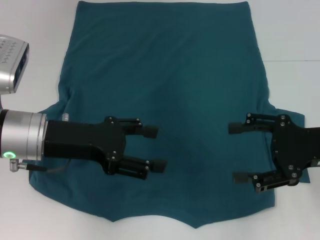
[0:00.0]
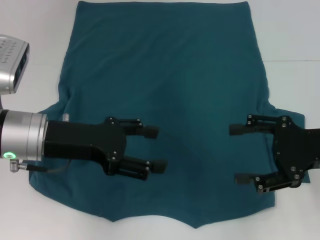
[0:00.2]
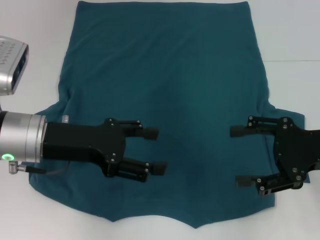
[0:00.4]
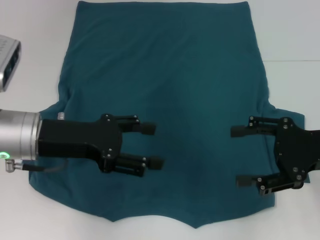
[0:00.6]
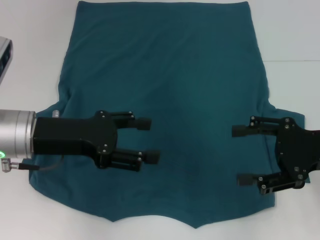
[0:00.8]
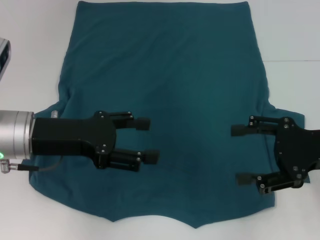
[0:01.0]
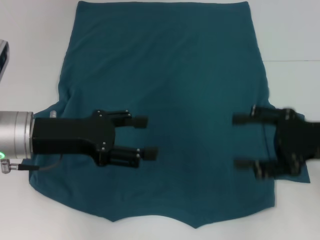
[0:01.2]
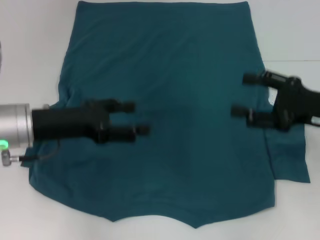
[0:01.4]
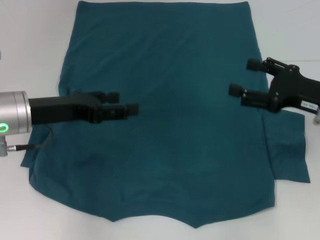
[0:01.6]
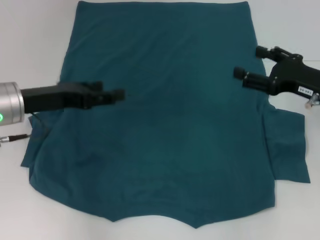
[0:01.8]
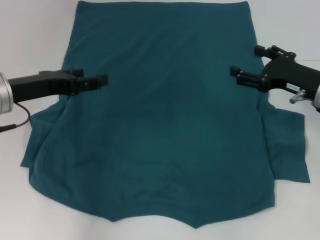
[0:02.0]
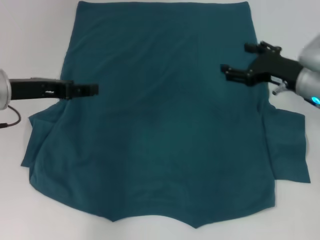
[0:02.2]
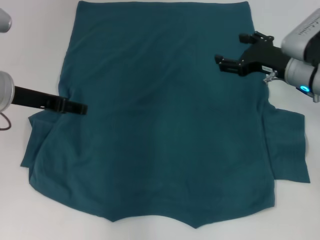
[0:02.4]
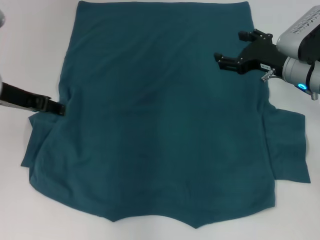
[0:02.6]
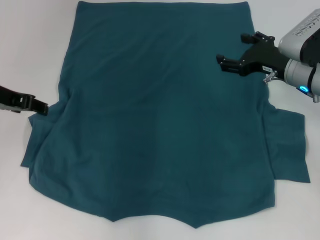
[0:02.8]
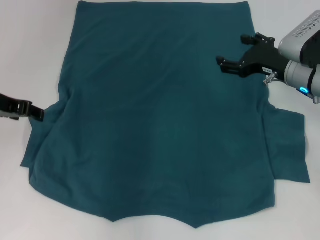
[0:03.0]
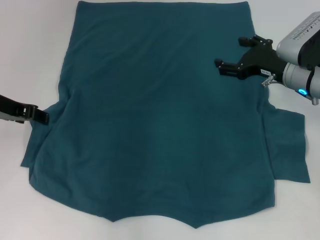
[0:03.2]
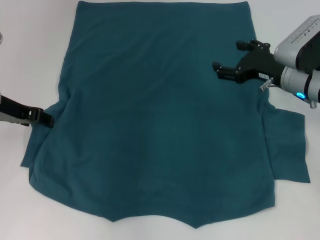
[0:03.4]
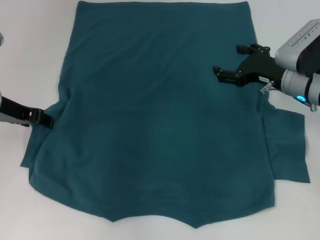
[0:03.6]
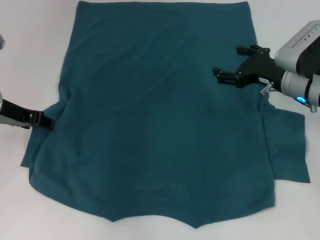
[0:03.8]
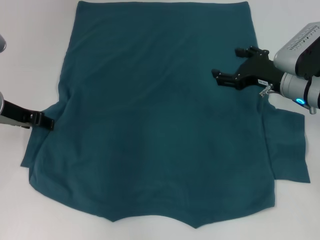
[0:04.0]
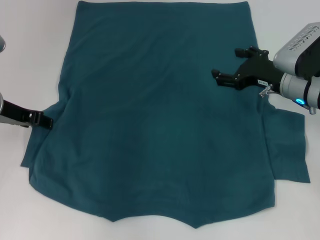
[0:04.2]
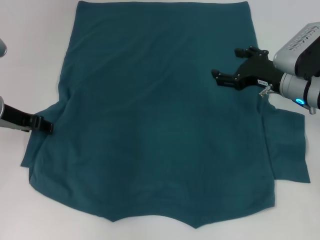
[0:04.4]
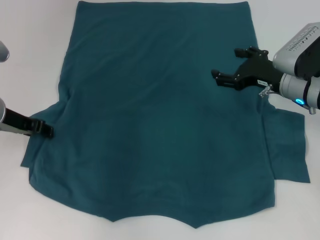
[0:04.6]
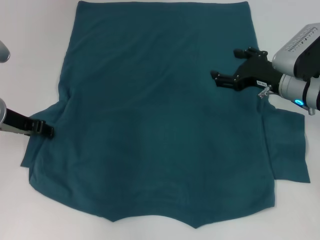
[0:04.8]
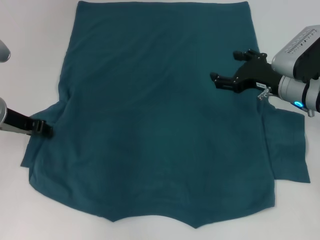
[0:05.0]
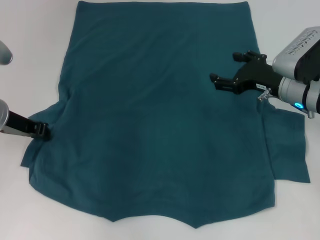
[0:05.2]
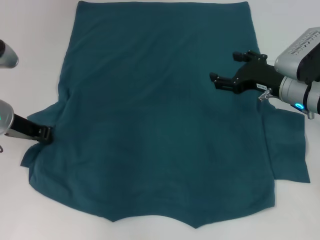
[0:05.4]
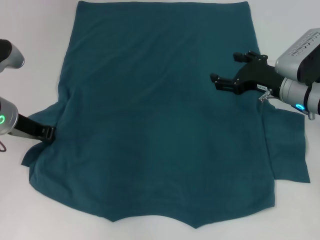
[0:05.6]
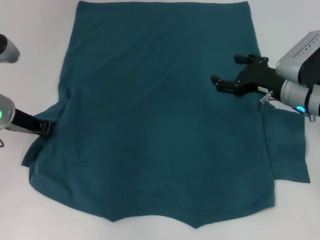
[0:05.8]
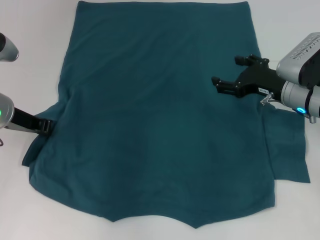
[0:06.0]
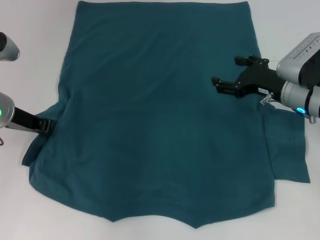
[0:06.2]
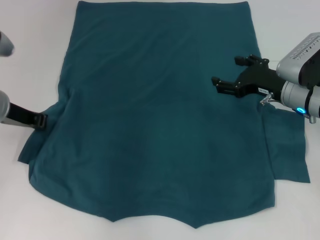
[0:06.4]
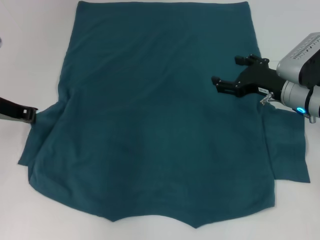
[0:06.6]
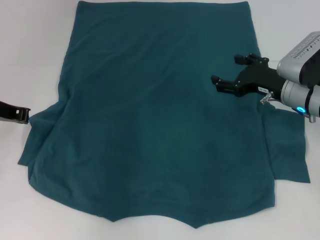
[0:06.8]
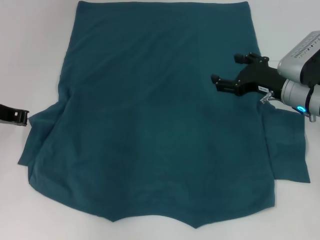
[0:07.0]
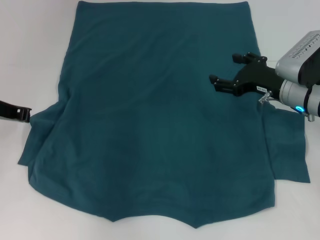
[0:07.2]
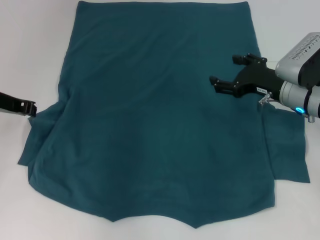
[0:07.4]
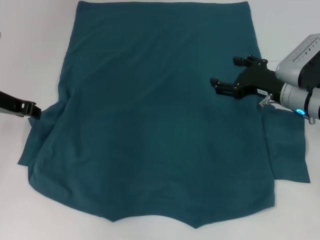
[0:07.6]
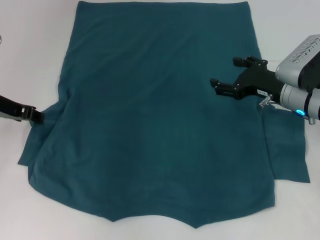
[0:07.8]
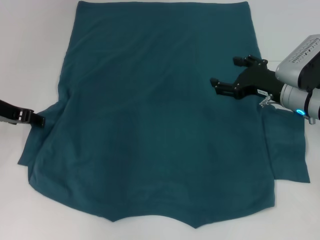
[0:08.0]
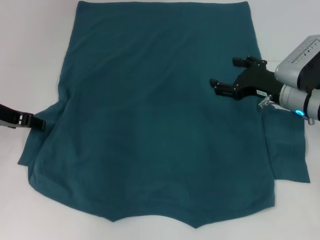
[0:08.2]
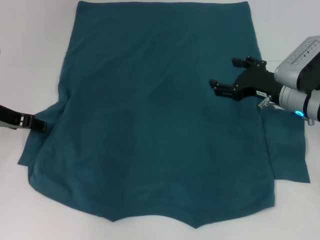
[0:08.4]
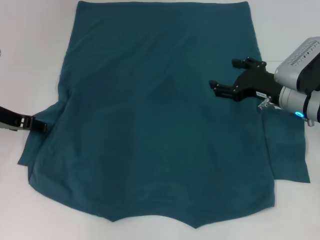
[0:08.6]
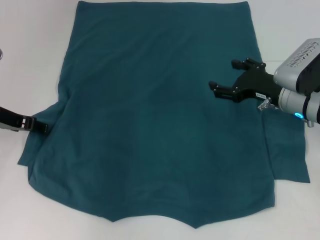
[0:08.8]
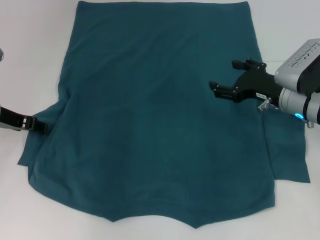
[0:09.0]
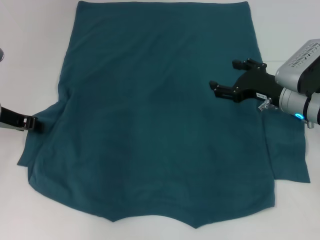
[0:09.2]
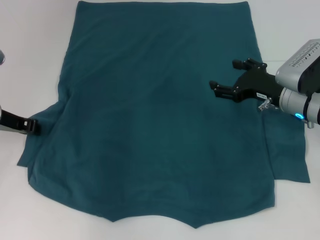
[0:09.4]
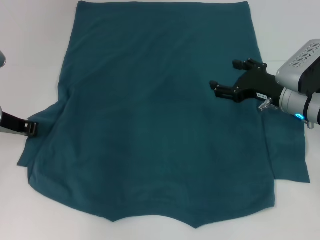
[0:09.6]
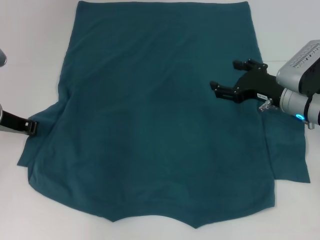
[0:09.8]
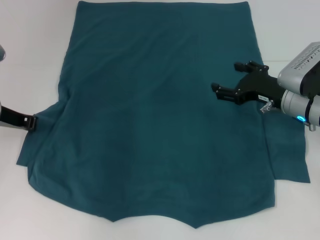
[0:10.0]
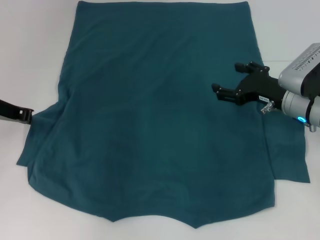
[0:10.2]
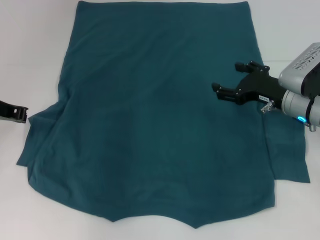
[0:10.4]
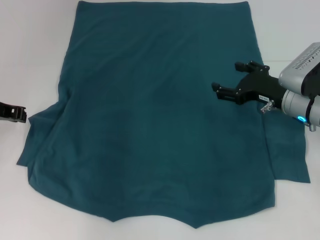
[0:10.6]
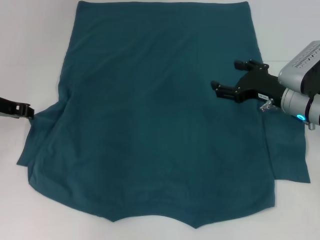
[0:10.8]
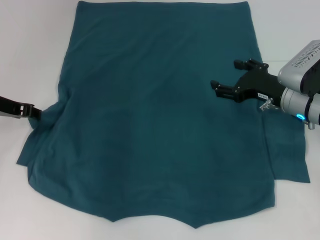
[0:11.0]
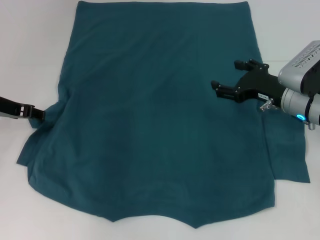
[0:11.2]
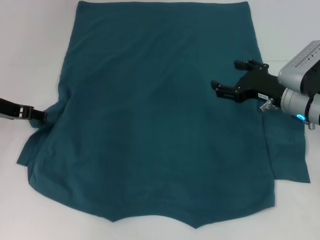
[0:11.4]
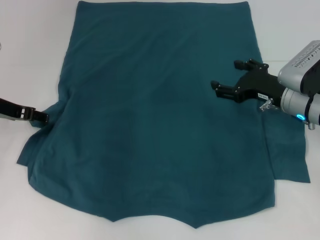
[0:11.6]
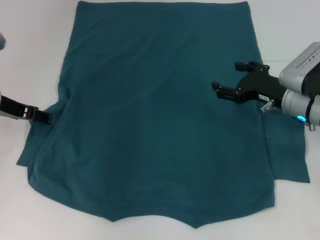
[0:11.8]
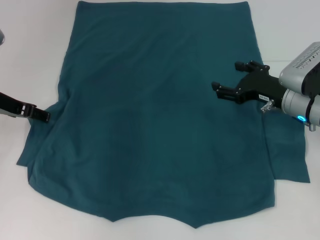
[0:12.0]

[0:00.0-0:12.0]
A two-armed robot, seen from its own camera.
0:01.6 to 0:03.0: The right gripper heads forward, covering approximately 10 cm. The left gripper moves roughly 5 cm.
0:03.0 to 0:04.4: The grippers move only a little.
0:04.4 to 0:06.0: The left gripper closes up.
0:06.0 to 0:07.6: There are only small adjustments of the grippers.
0:07.6 to 0:09.0: The left gripper opens its fingers.
0:09.0 to 0:10.4: The left gripper closes.
0:10.4 to 0:12.0: The left gripper opens up.

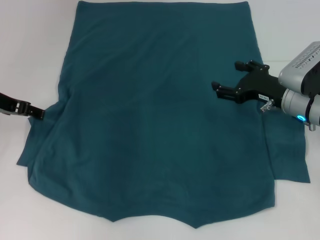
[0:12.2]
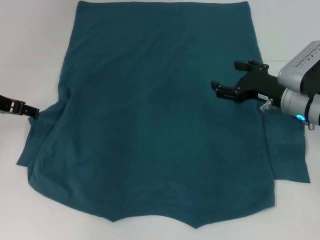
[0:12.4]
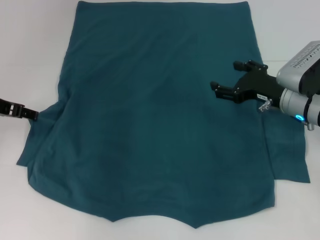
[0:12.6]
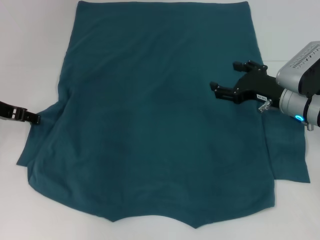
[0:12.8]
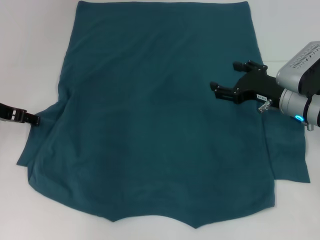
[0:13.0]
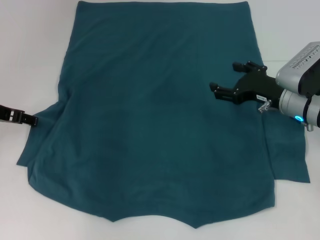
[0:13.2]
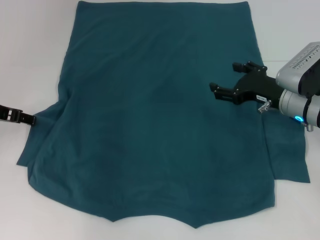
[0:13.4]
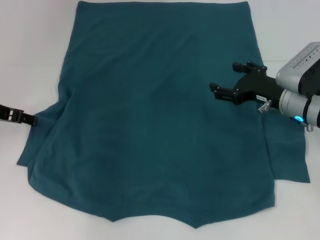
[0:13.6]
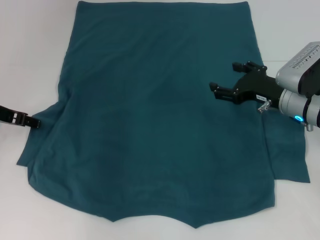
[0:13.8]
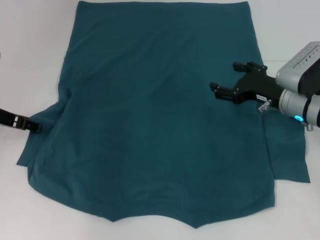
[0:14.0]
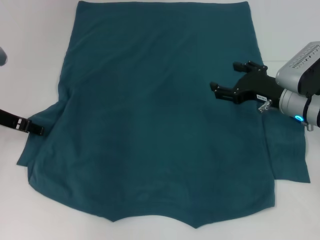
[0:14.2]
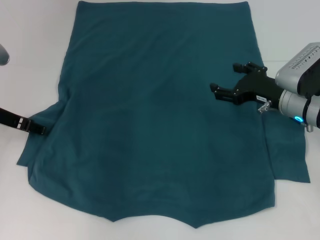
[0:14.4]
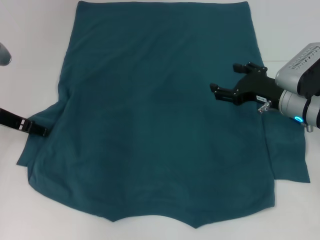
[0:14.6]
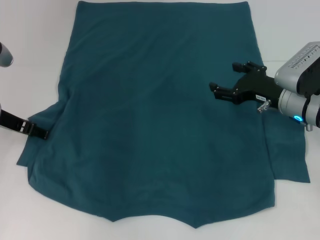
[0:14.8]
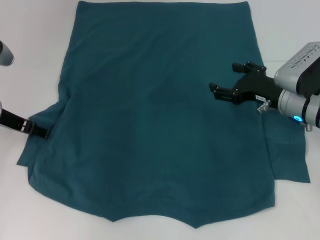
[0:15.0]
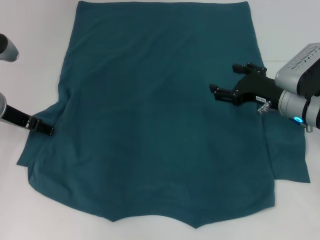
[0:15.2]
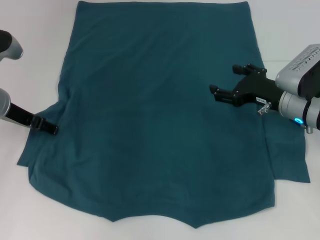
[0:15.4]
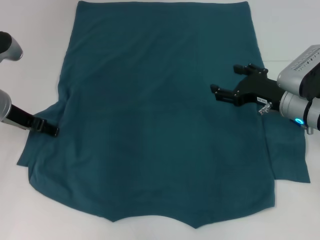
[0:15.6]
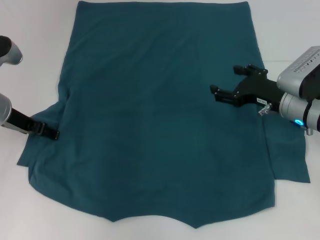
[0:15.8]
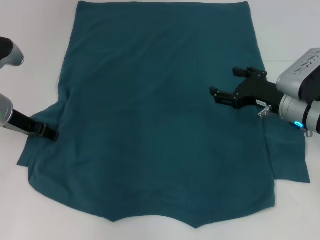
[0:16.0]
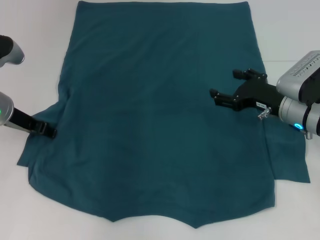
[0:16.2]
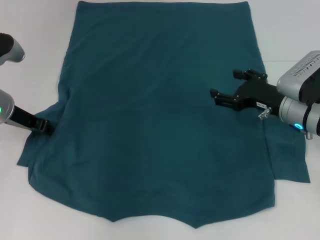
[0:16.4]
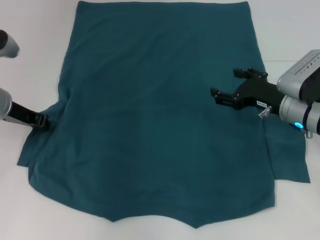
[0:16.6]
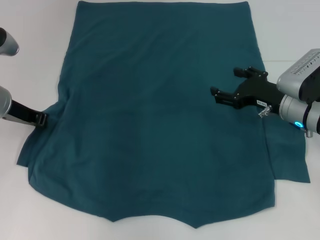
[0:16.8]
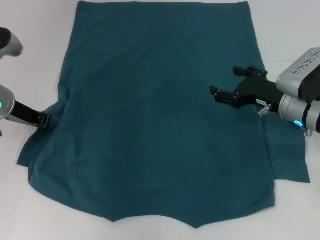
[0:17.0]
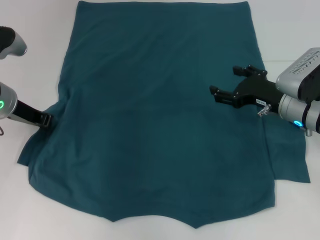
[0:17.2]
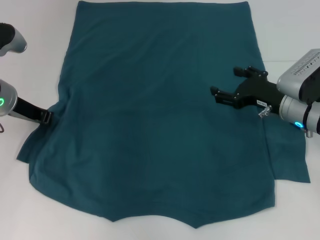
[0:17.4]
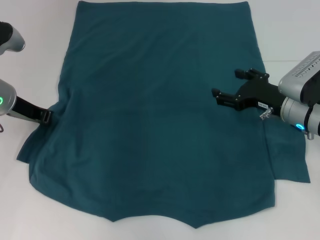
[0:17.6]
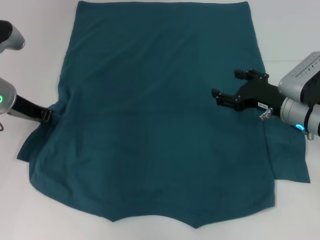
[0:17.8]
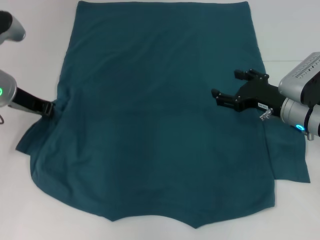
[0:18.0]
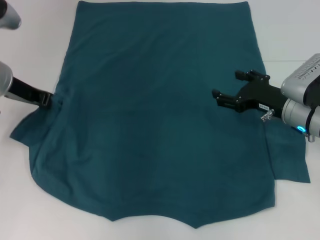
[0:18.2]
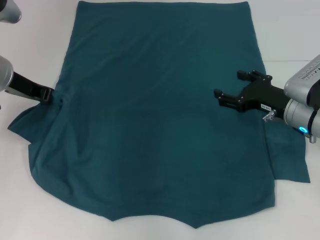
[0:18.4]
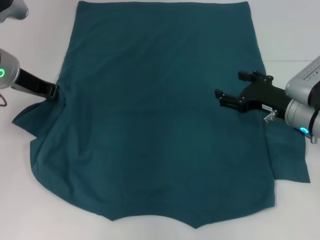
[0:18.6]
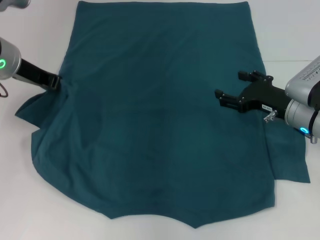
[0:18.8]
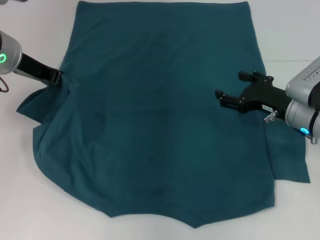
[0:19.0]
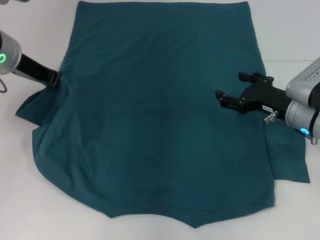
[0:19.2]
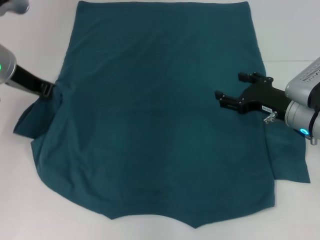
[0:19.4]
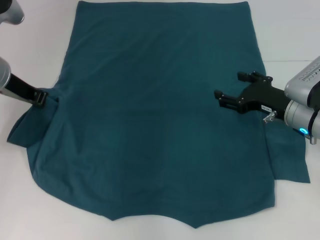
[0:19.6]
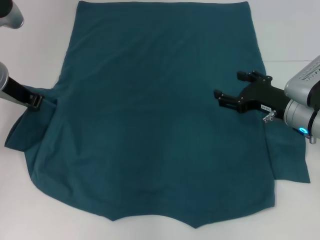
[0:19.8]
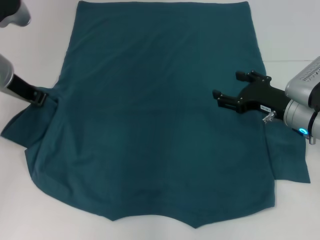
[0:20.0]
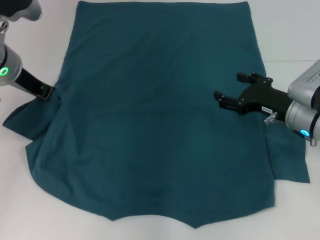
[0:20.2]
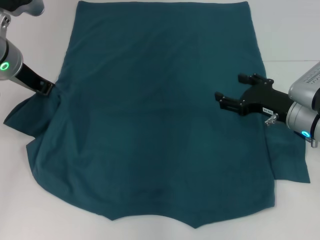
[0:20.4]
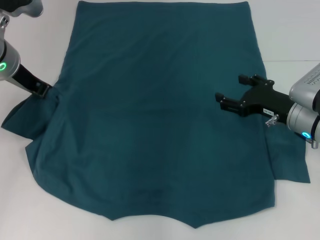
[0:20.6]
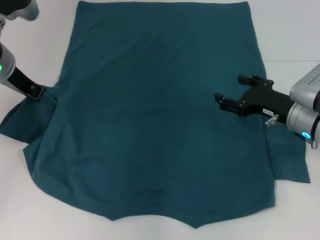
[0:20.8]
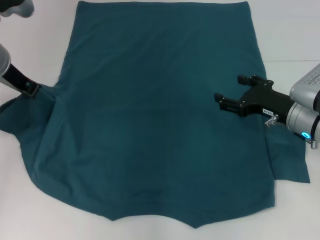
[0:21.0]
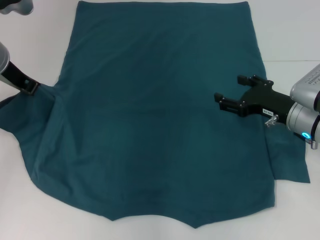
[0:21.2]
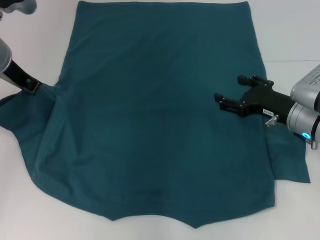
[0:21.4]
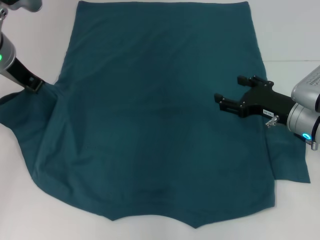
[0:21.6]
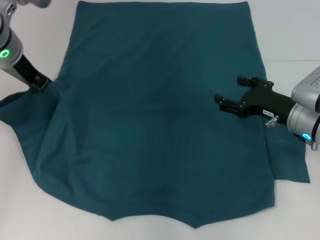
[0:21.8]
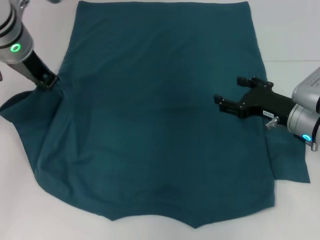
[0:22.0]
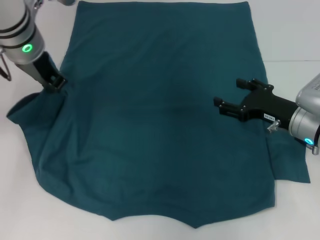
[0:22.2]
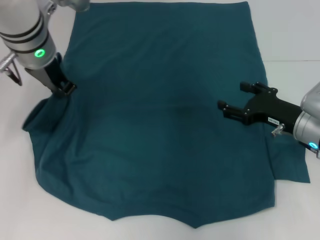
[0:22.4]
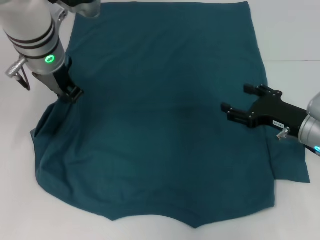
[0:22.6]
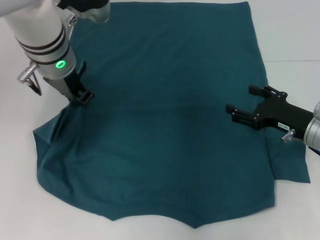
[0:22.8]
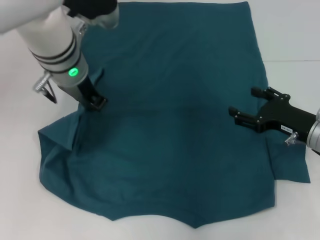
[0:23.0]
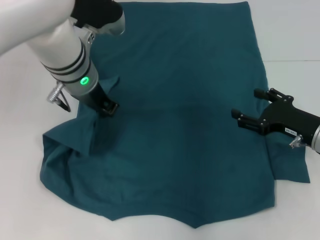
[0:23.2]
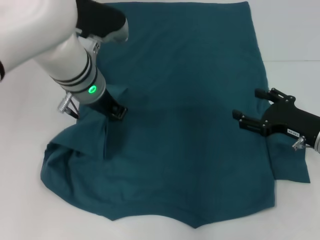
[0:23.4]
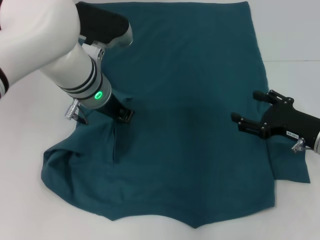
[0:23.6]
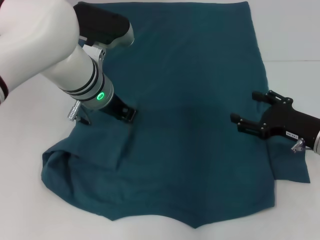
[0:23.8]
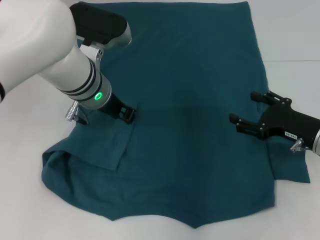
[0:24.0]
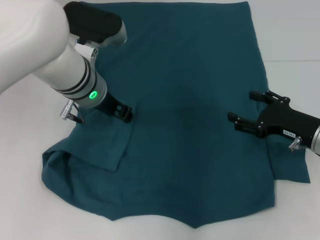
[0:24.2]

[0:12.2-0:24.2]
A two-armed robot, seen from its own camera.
0:12.2 to 0:15.2: The grippers move only a little.
0:15.2 to 0:16.6: The left gripper closes.
0:16.6 to 0:18.2: The left gripper closes its fingers.
0:18.2 to 0:21.2: The grippers stay close to where they were, moving slightly.
0:21.2 to 0:22.6: The left gripper shifts some 10 cm to the right.
0:22.6 to 0:24.2: The left gripper shifts about 5 cm downward.
